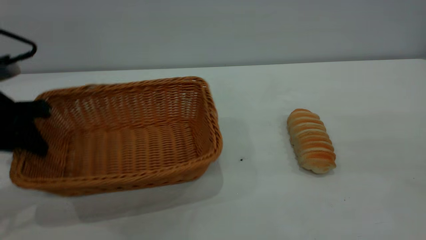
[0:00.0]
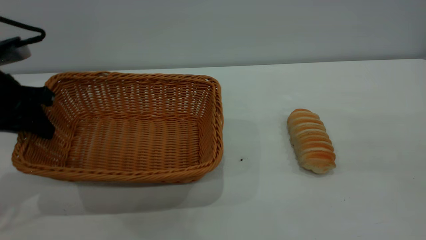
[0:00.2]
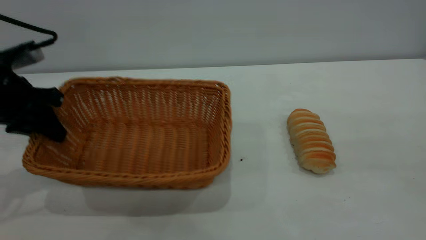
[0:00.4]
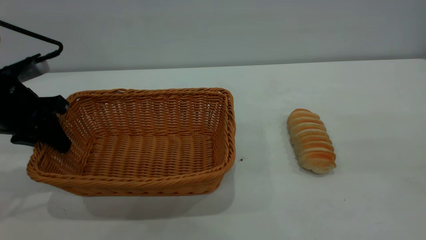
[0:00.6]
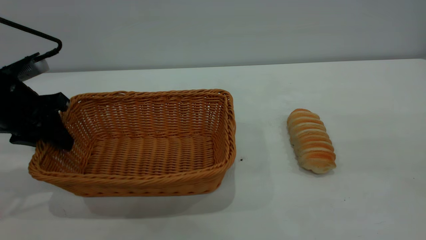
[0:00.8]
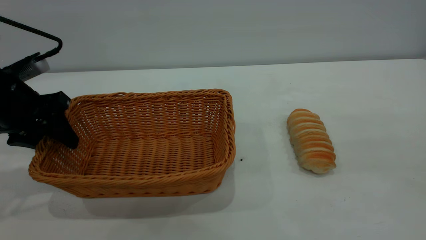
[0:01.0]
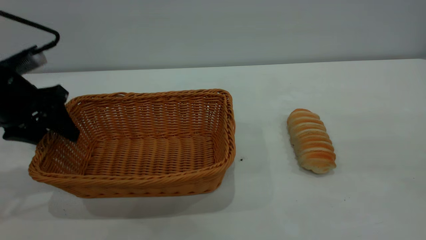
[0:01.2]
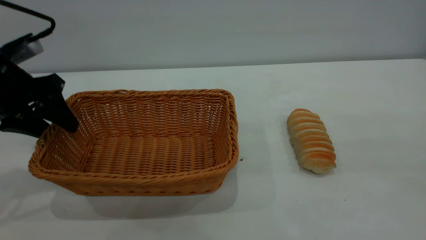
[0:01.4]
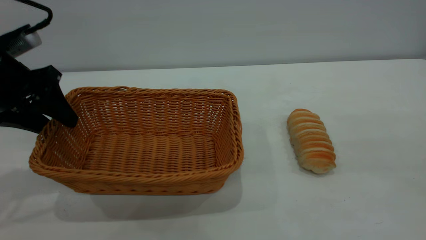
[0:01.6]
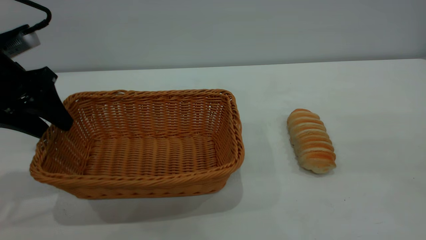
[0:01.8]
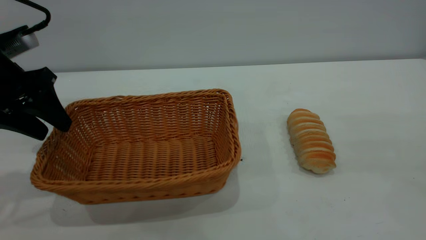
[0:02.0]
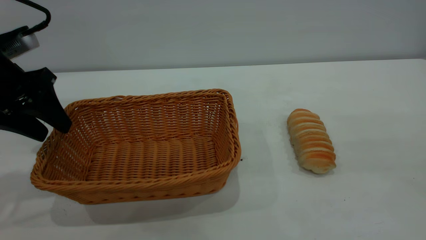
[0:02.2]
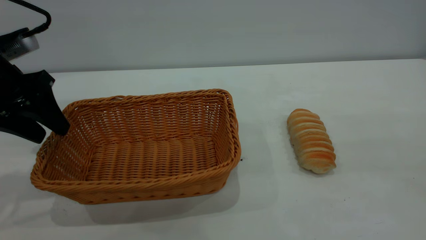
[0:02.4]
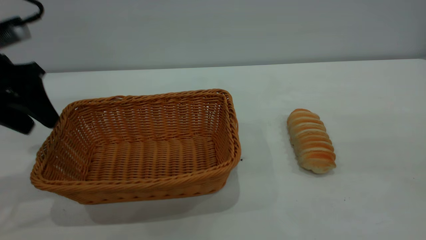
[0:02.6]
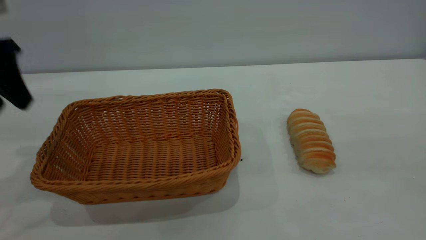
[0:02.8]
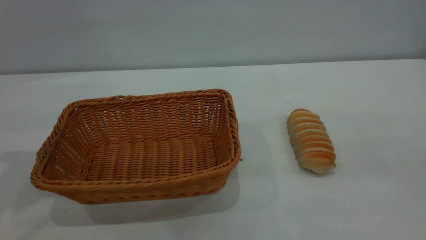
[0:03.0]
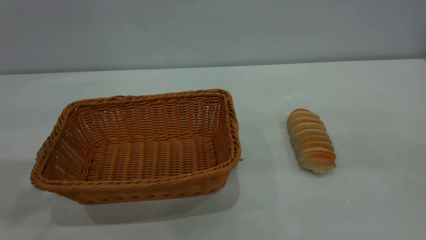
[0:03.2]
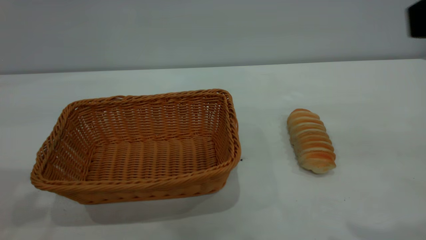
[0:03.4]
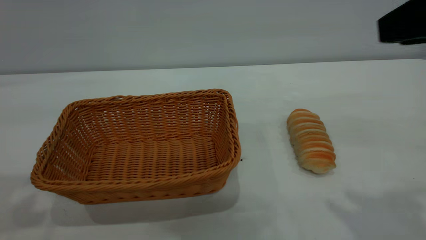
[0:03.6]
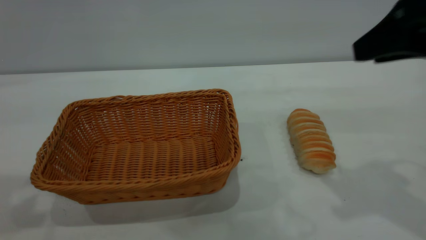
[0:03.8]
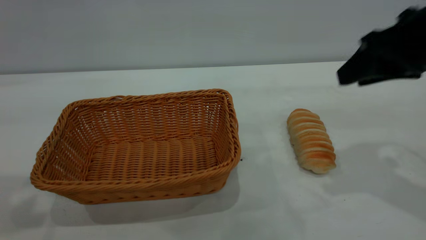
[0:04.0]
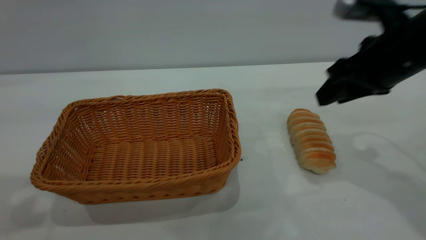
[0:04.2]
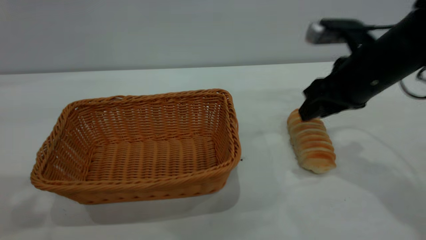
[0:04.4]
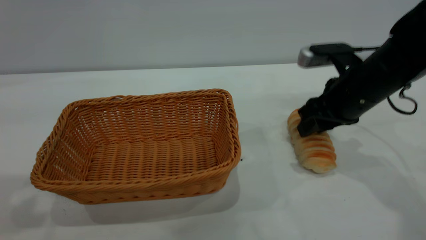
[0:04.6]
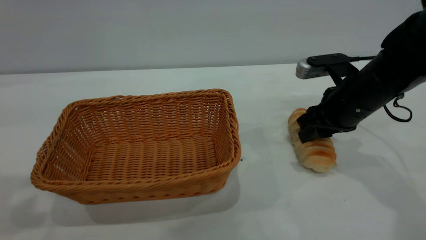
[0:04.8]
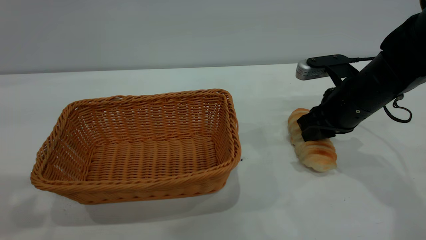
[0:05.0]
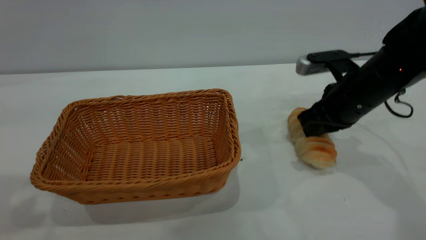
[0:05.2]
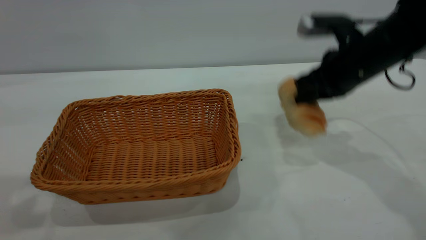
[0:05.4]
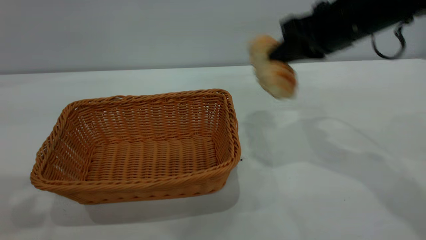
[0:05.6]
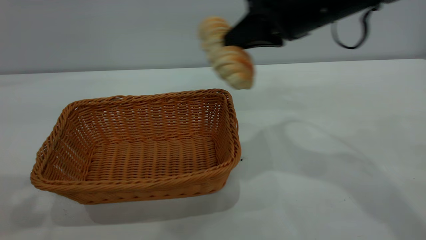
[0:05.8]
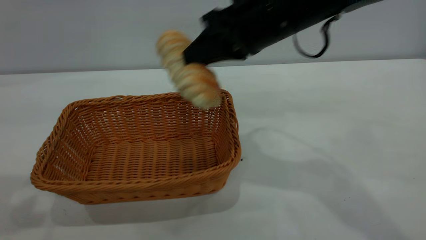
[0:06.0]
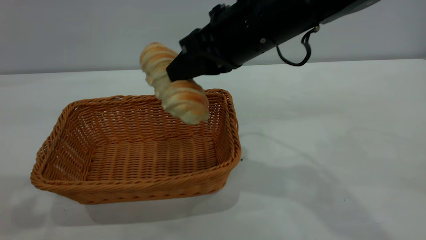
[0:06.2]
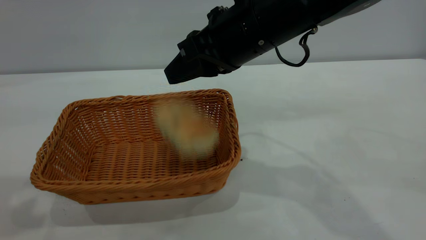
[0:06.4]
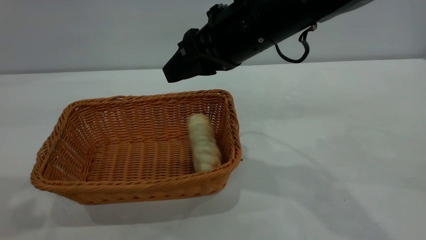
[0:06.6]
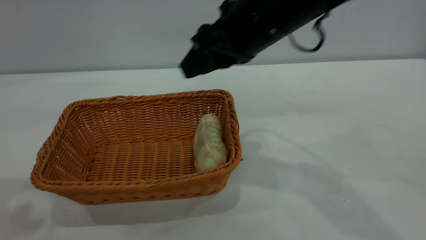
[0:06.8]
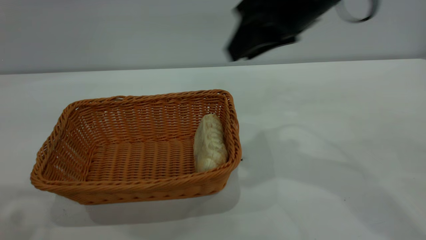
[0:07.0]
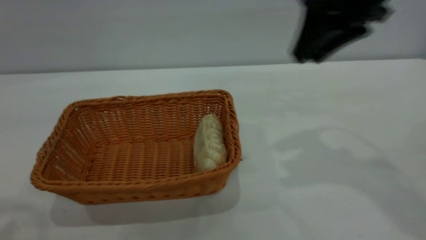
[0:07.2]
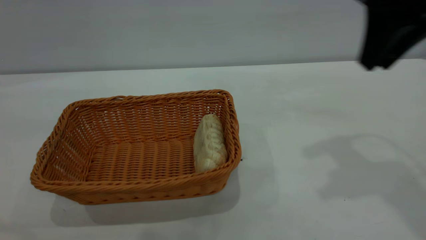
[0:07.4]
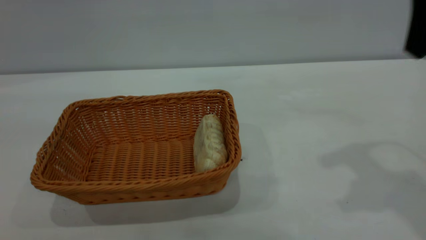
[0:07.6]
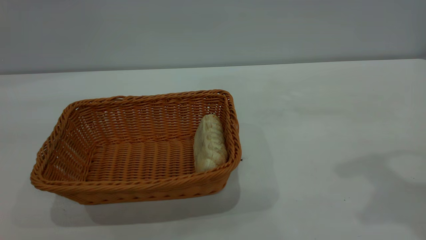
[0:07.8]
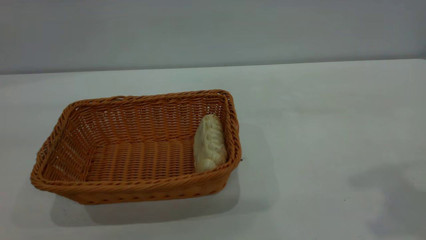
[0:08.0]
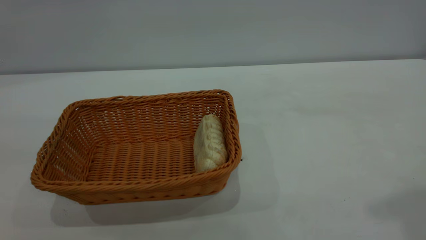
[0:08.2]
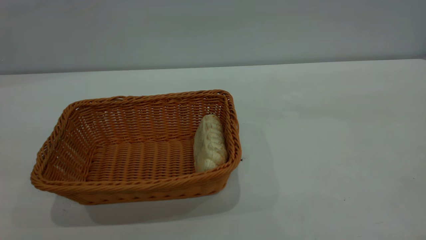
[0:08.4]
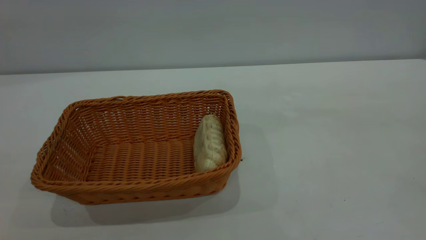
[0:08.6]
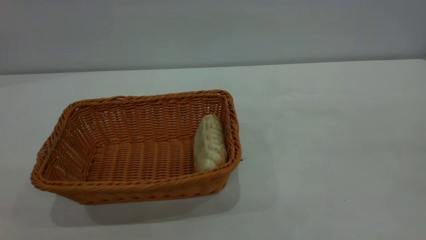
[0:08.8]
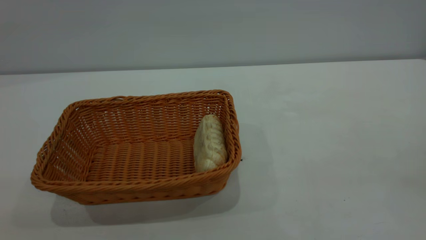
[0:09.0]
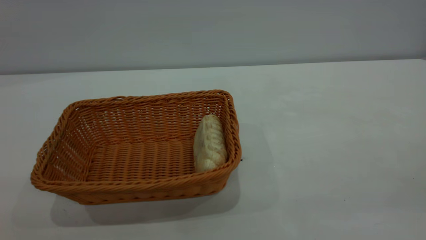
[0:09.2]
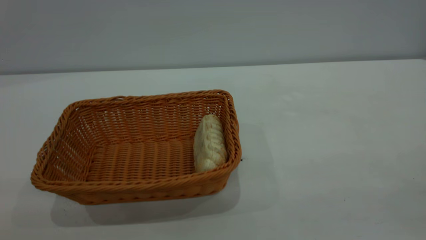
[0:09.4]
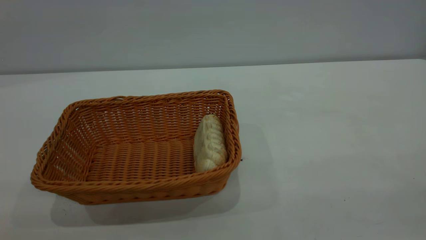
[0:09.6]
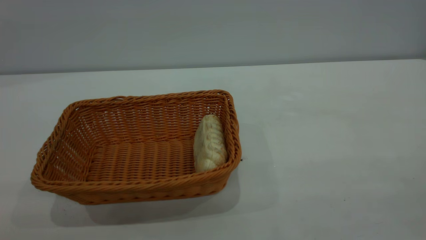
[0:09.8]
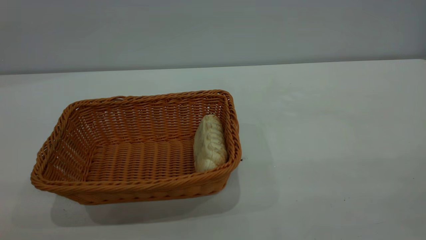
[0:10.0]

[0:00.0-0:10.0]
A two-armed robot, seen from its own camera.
Task of the whole recording: One hand grasps the yellow basket and places it in the middle of the table, while the other hand picks up the long bread and puts it into the yellow basket.
Step, 0.0 to 2.4 s: Move the basket to the center of view.
Step, 5.4 to 6.6 s: place the bread into the basket.
0.0 to 1.4 s: The left gripper opens up.
1.4 to 2.8 s: The left gripper goes some 10 cm upward.
2.8 to 4.2 s: The right gripper is displaced forward and downward by about 30 cm. Meanwhile the left gripper travels upward and backward by some 15 cm.
4.2 to 5.8 s: The right gripper shifts roughly 10 cm to the left and upward, and closes its fingers.
5.8 to 7.2 s: The right gripper travels to the right by some 5 cm, and opens; the left gripper changes place by roughly 5 cm.
7.2 to 8.6 s: The right gripper heads backward and upward, covering some 35 cm.

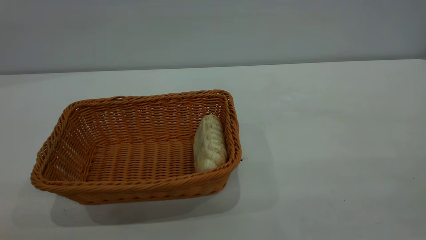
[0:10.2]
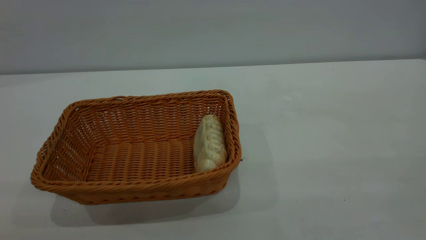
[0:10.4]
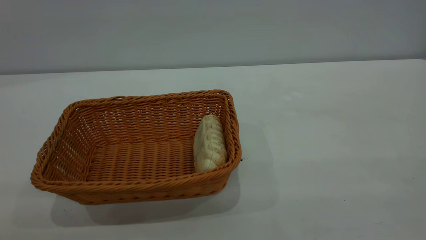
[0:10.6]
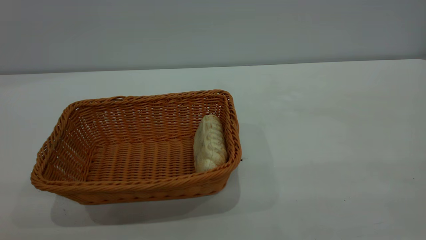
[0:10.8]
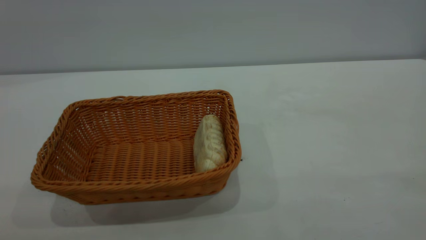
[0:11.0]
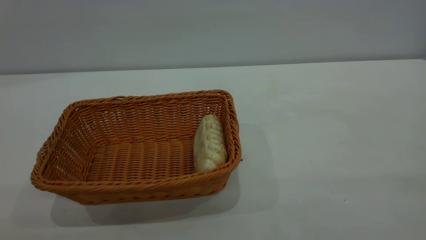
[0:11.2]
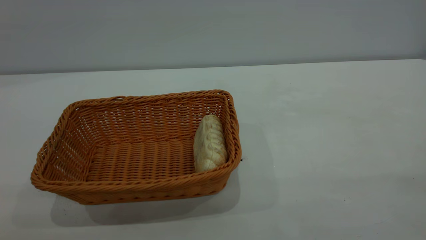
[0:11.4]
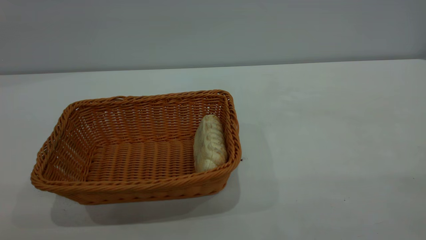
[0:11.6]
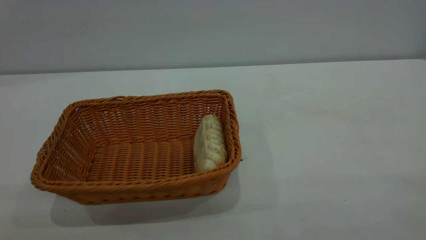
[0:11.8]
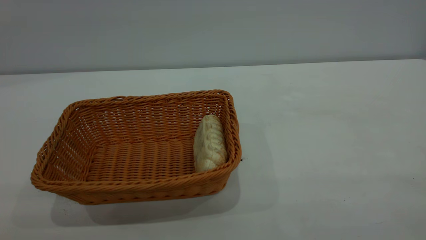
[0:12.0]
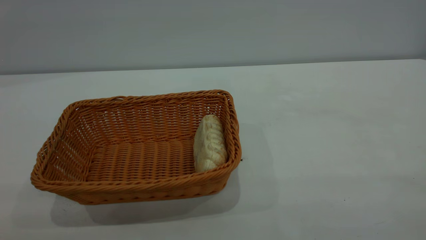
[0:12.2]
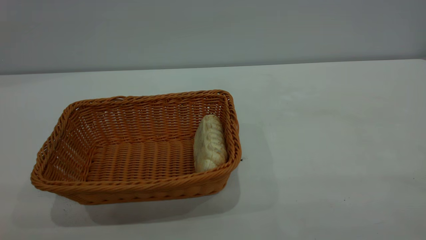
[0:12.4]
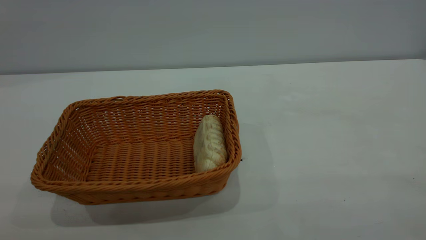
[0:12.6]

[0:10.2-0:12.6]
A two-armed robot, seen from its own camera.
Task of the whole recording: One hand grasps the yellow basket and places it in the middle of the table, while the other hand picks up the long bread and puts it into the yellow basket.
11.4 to 12.6 s: Both grippers stay about where they are.

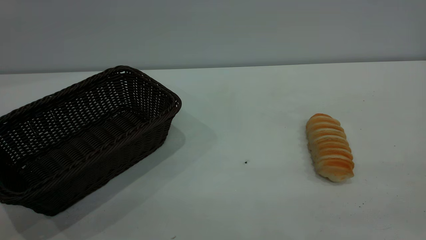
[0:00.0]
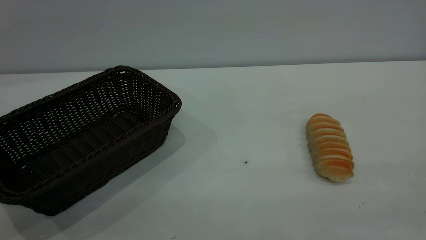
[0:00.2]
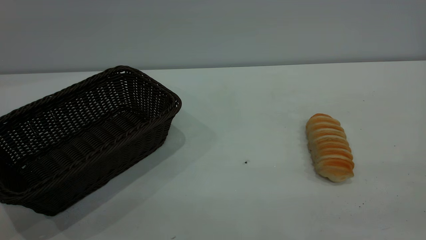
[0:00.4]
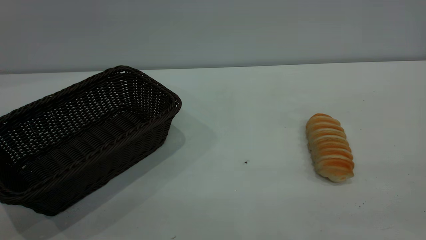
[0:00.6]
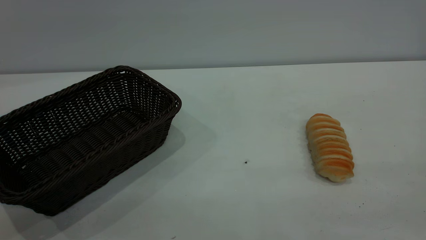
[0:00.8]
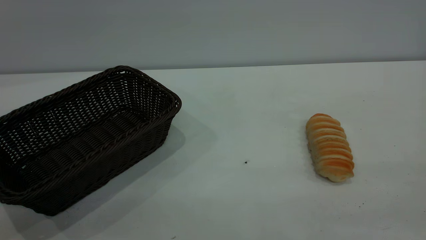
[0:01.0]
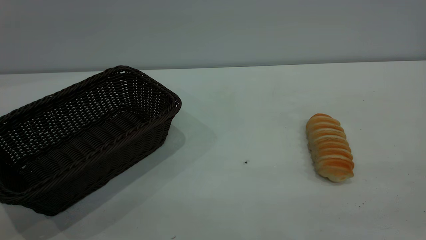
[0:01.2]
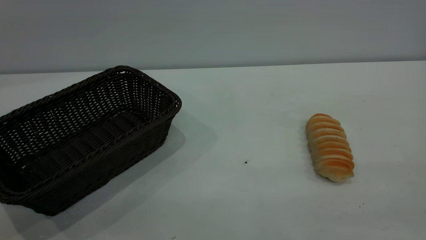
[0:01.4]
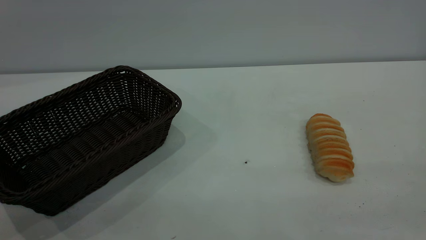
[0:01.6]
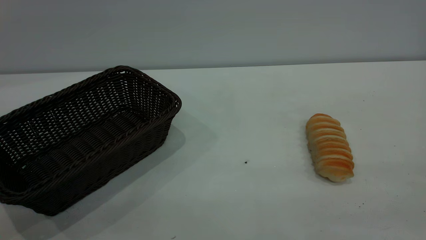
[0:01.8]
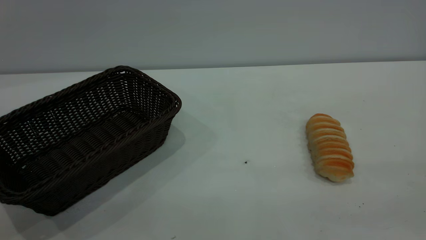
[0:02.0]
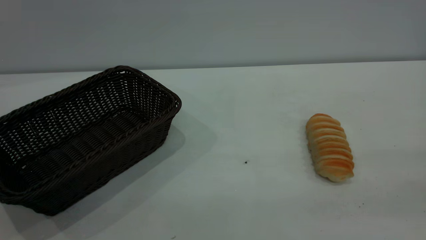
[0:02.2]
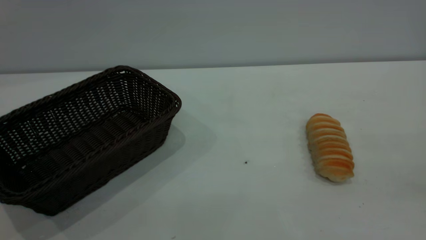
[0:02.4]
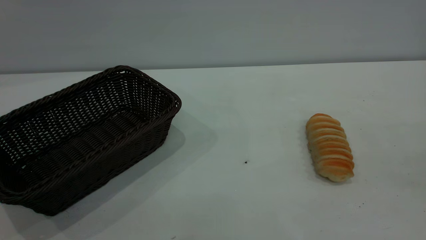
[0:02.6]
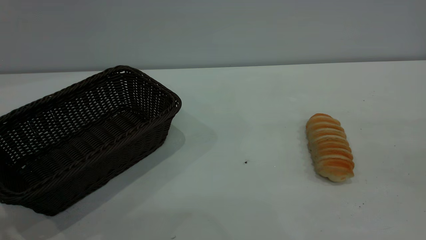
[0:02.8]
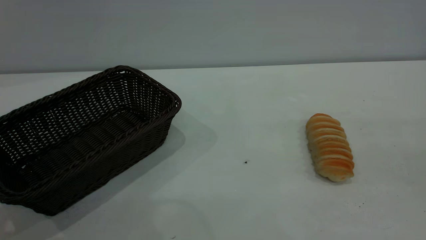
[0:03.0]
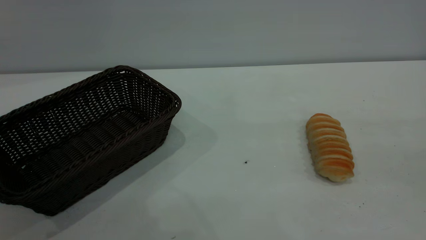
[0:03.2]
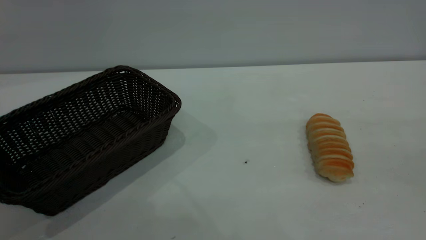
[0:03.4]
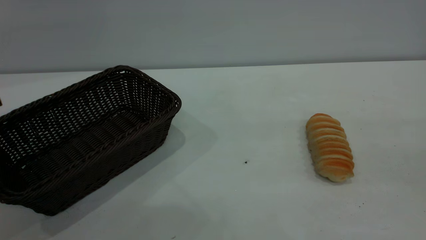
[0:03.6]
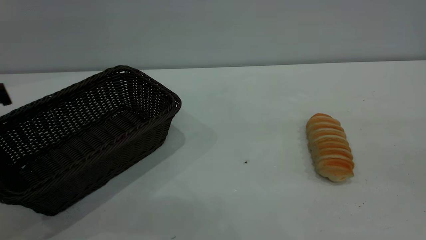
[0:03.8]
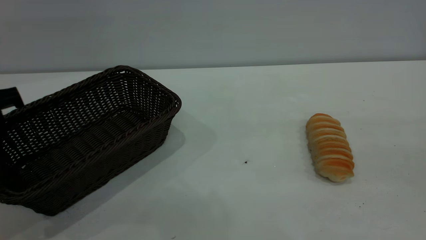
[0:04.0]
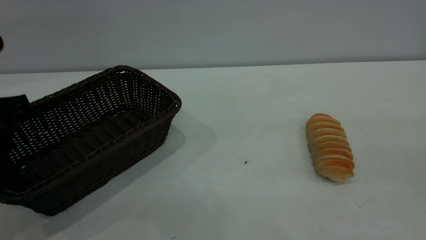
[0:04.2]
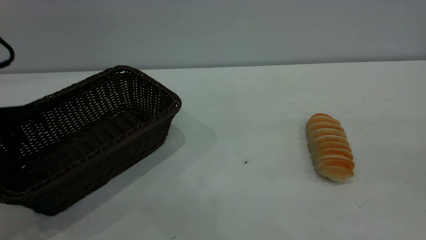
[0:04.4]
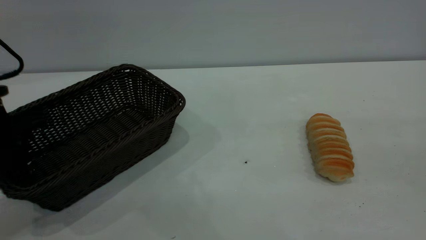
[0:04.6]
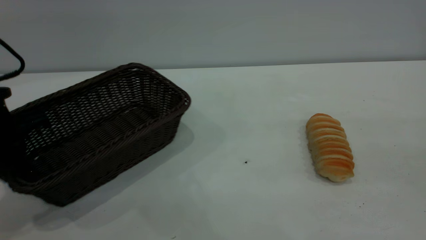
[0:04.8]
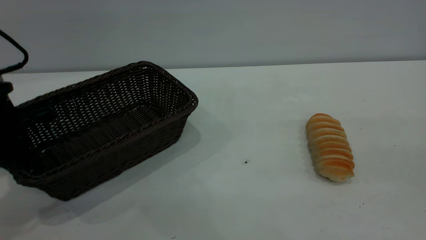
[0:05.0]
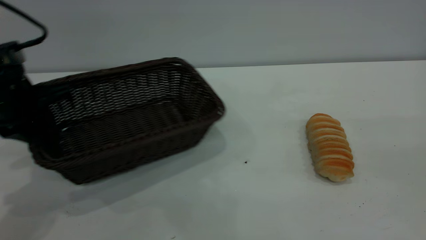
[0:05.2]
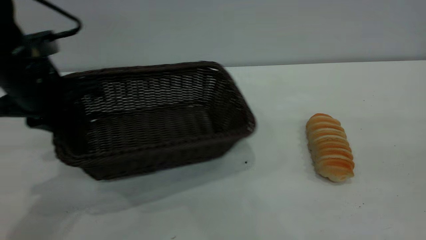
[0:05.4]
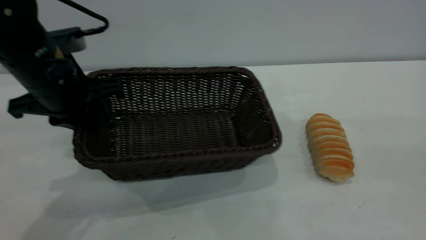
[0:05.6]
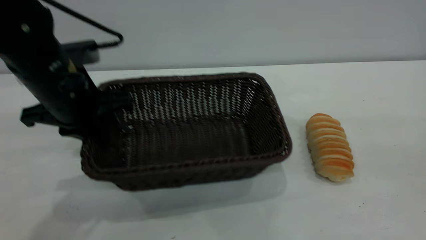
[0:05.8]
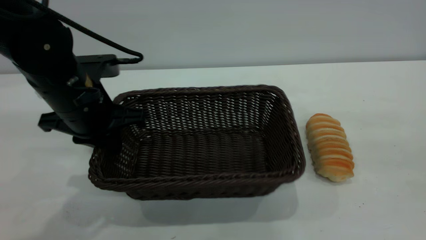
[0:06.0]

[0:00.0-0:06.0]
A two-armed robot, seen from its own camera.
Task of the whole recording: One hand grasps the black basket and places it in the middle of the table, while the other hand picks up the long bread and puts it into the black basket.
4.4 to 6.0 s: The left gripper goes approximately 10 cm to the right, and closes.
